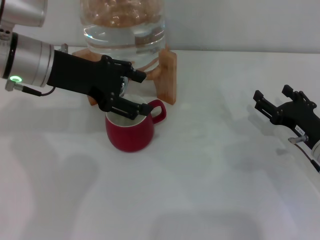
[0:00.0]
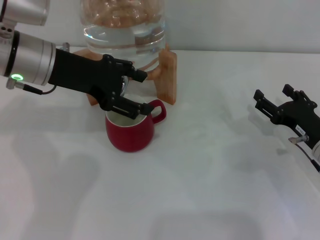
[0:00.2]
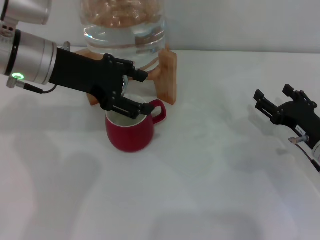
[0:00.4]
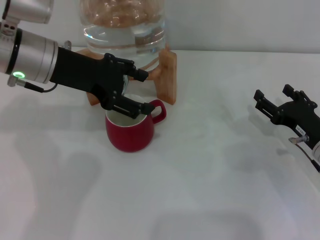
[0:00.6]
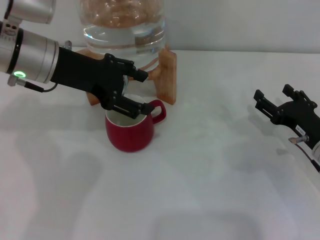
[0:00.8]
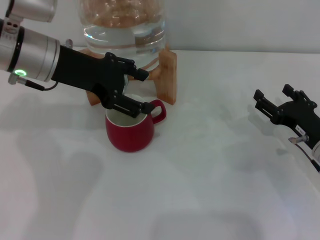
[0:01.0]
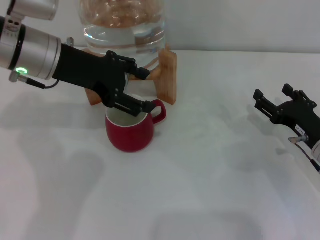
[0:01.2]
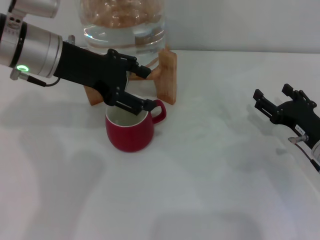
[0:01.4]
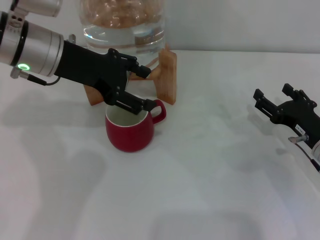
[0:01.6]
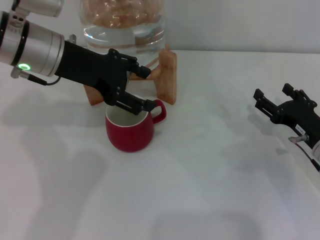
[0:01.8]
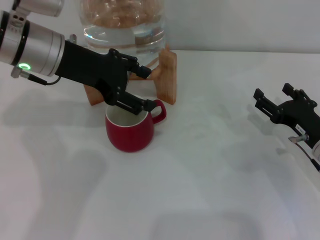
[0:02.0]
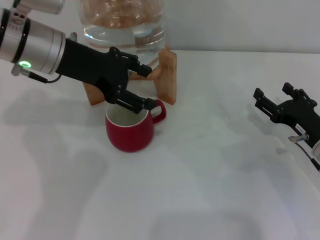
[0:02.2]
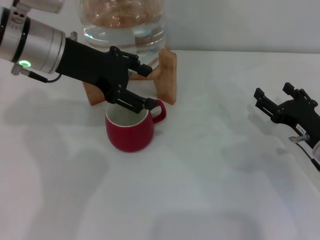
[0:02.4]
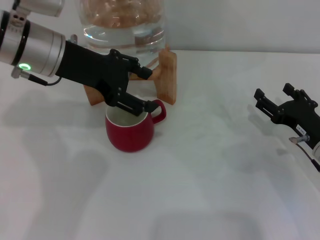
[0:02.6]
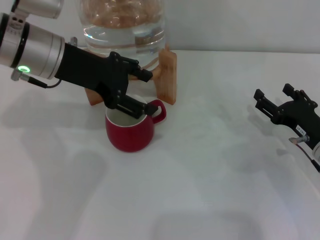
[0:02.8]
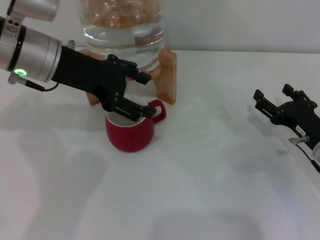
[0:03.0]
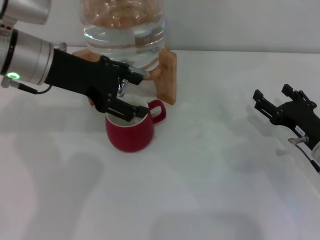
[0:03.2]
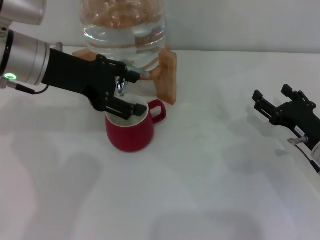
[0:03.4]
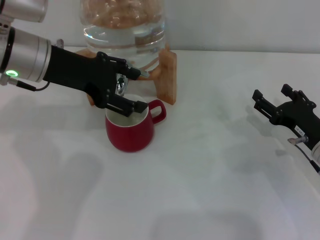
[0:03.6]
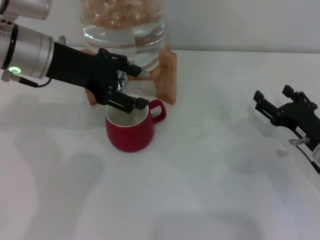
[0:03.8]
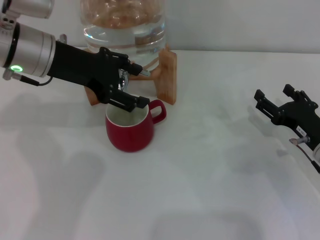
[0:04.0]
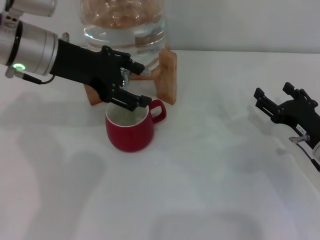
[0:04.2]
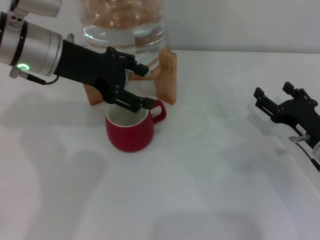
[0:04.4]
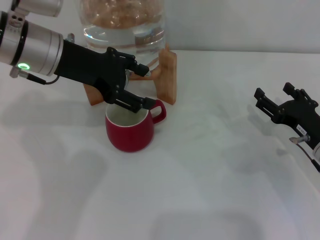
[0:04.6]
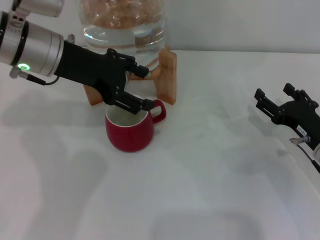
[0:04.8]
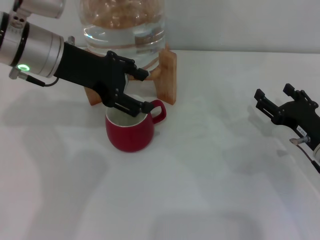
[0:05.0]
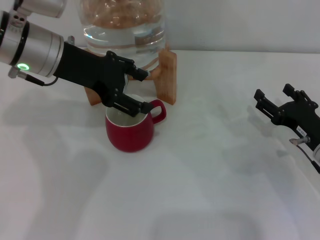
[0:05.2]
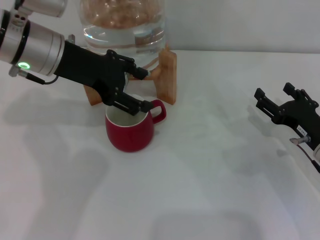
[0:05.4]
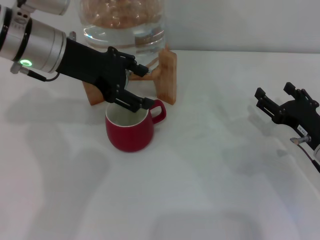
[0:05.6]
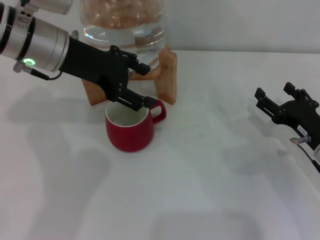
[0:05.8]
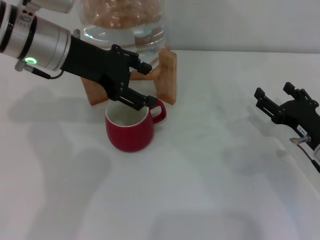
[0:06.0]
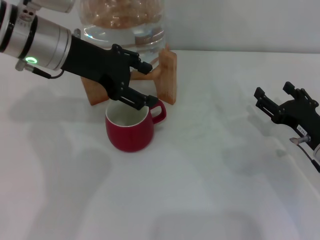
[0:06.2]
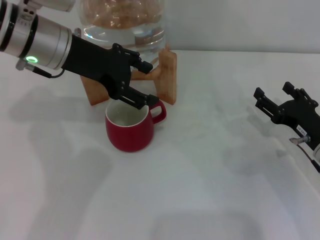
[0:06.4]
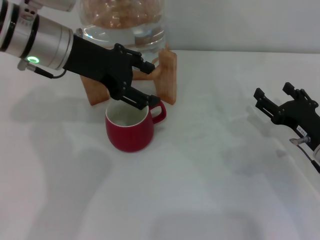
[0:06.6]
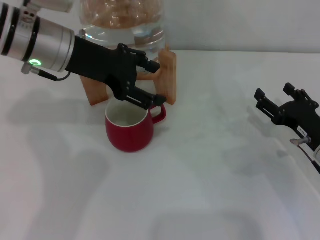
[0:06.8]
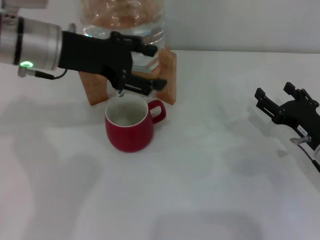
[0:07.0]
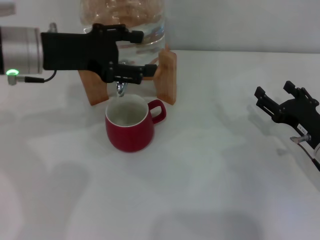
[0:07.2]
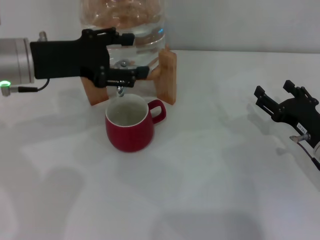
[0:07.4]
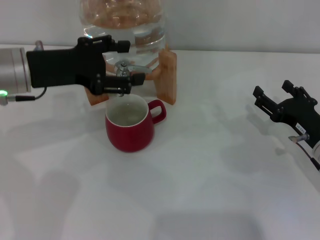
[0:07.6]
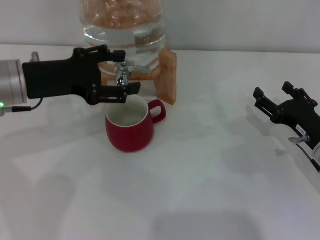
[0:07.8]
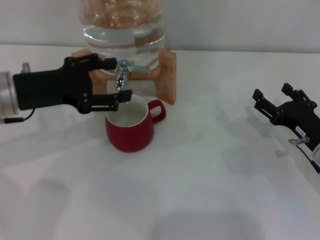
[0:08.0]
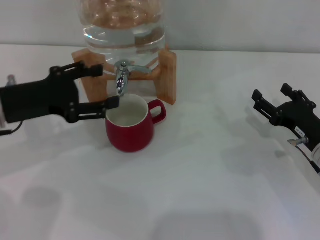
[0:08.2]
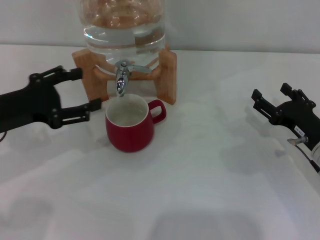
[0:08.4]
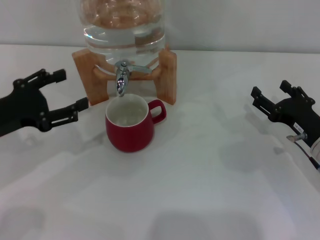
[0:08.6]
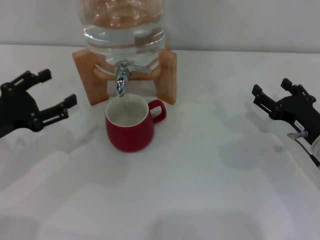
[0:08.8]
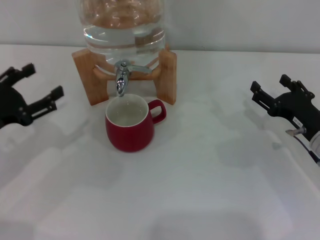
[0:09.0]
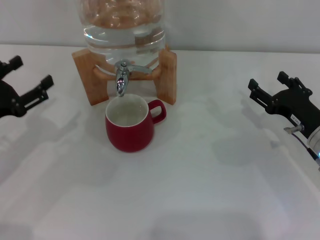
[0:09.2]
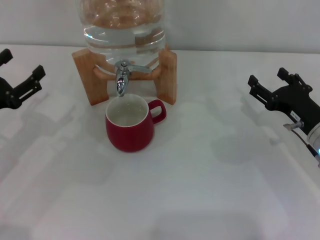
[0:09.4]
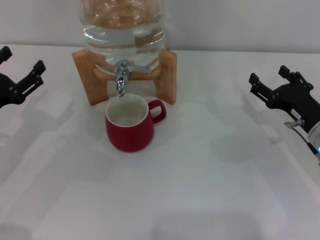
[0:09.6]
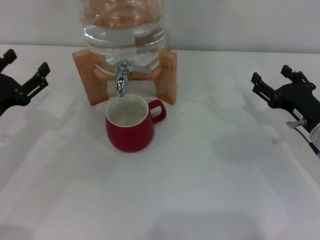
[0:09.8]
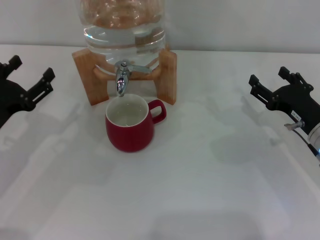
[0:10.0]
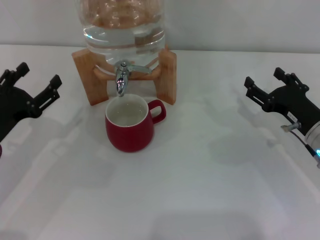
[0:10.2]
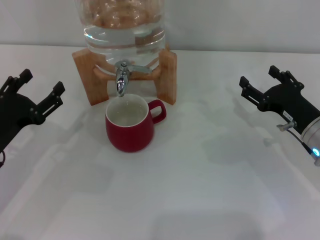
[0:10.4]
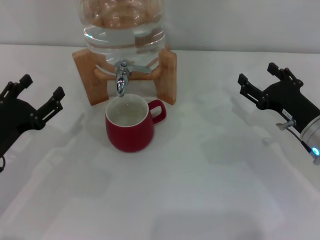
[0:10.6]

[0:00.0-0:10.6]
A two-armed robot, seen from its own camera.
Task of the whole recording: the right gripper pick up the red cup and place it horizontally under the faucet, the left gripper turn on the faucet to fill the cup, and then turn off the faucet.
Step, 0:00.0 to 0:06.8: Close the dispenser valve with the left gripper.
0:00.0 to 0:01.6: The grippers move only a little.
0:01.6 to 0:03.0: Both grippers stay about where they are.
0:03.0 to 0:04.6: There are only small adjustments of the grippers.
0:04.6 to 0:06.0: Both grippers stay about where they are.
0:06.0 to 0:07.6: The left gripper moves to the left, some 5 cm.
0:07.6 to 0:09.0: The left gripper is displaced to the left, backward and downward by approximately 15 cm.
0:09.0 to 0:10.6: The left gripper changes place by about 5 cm.
